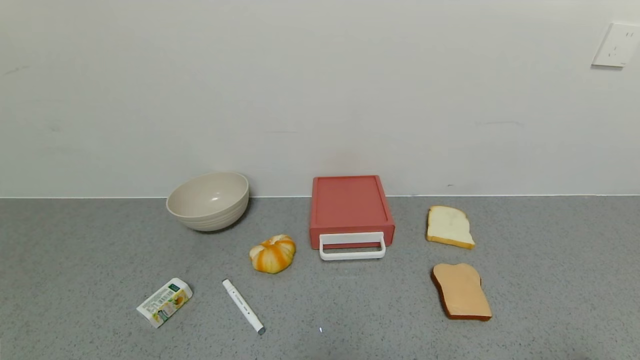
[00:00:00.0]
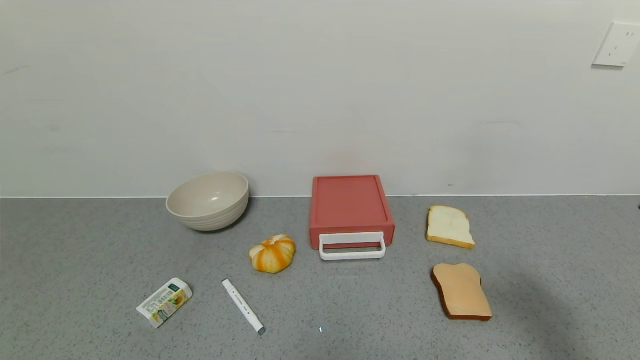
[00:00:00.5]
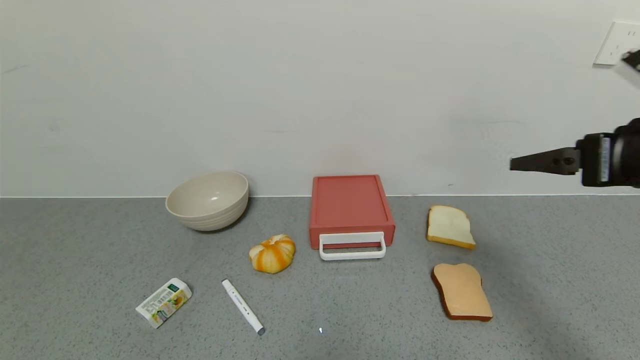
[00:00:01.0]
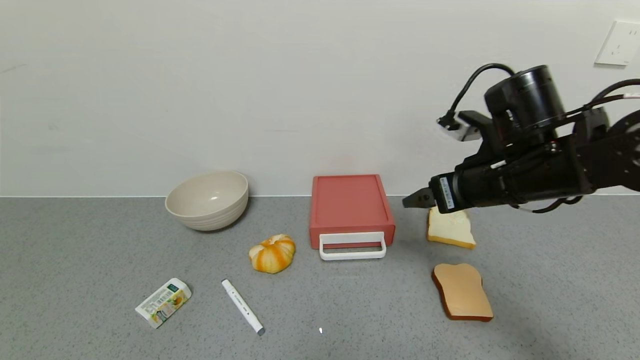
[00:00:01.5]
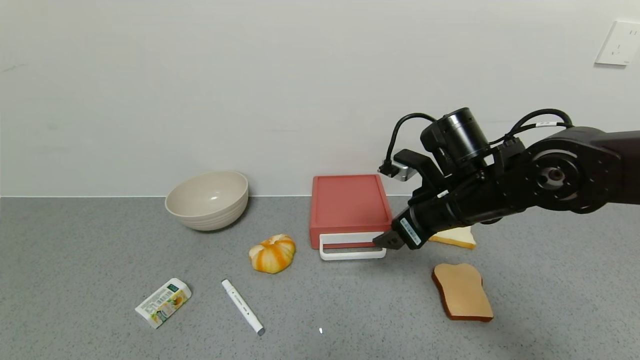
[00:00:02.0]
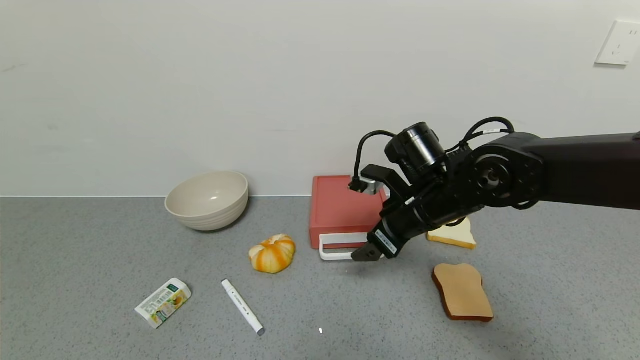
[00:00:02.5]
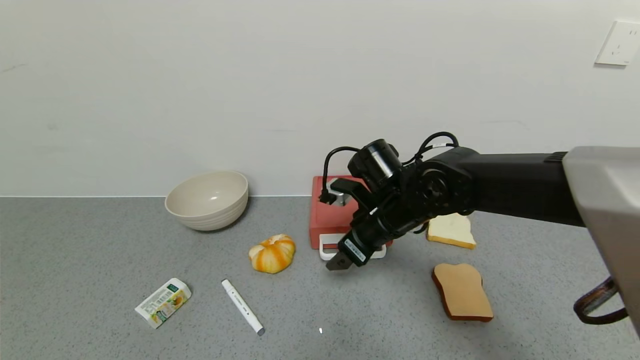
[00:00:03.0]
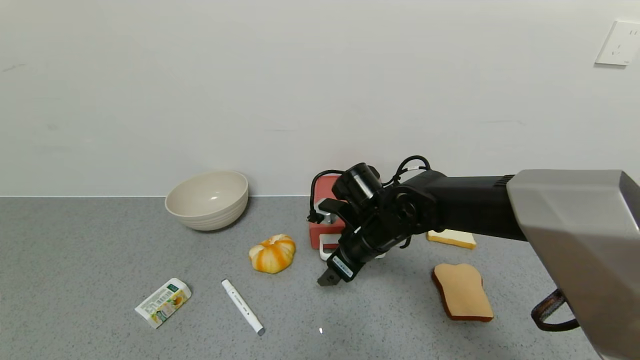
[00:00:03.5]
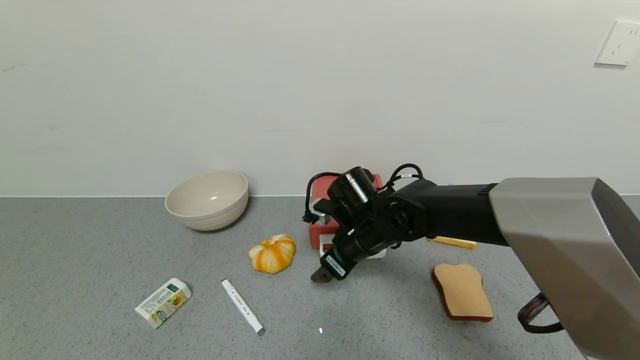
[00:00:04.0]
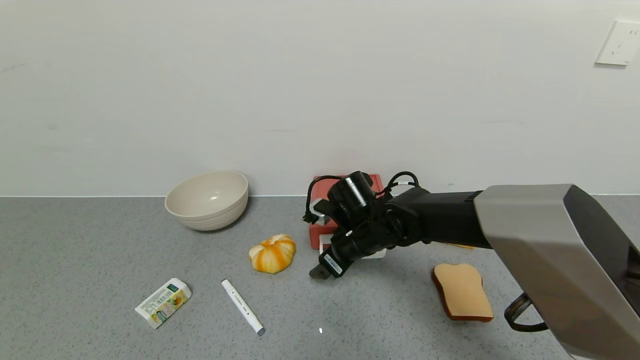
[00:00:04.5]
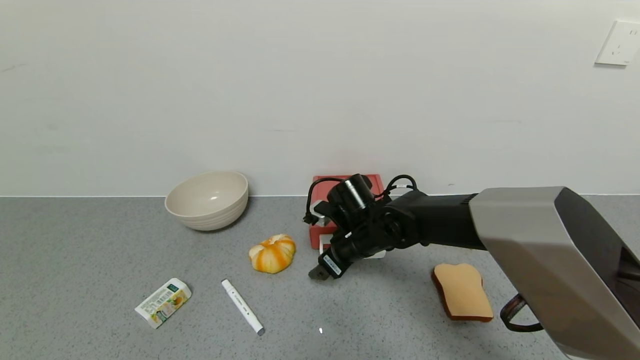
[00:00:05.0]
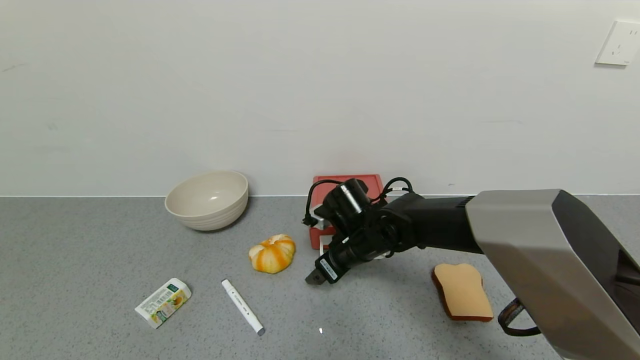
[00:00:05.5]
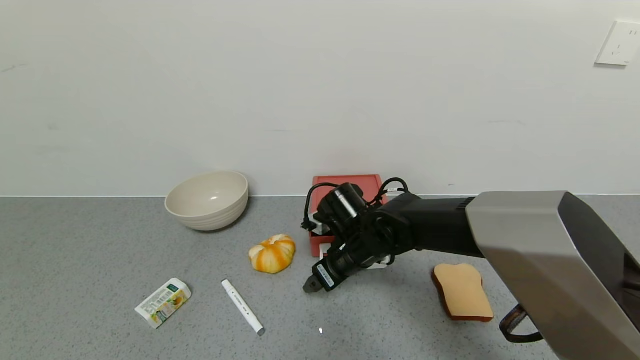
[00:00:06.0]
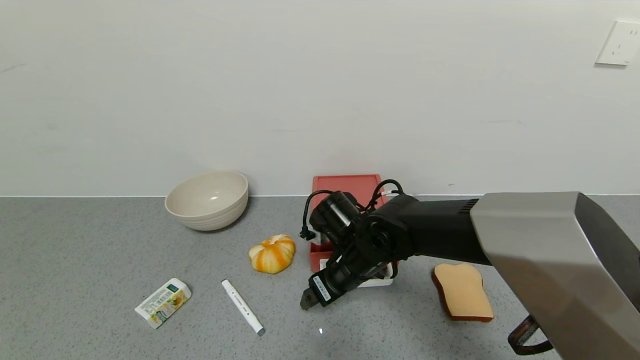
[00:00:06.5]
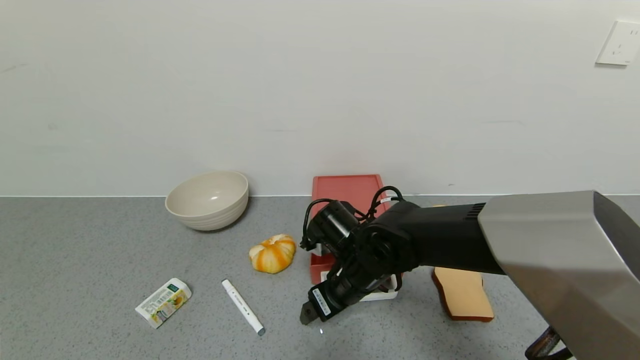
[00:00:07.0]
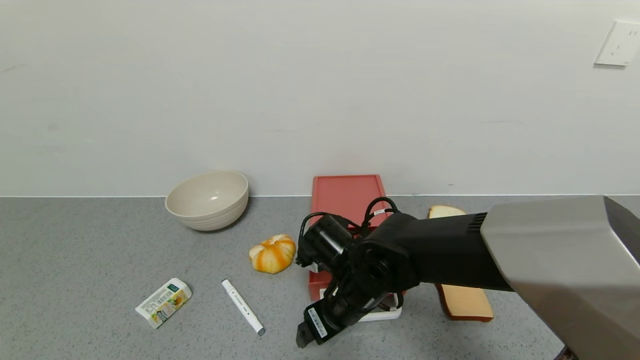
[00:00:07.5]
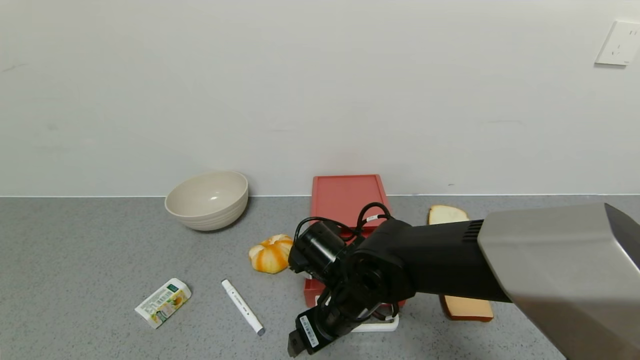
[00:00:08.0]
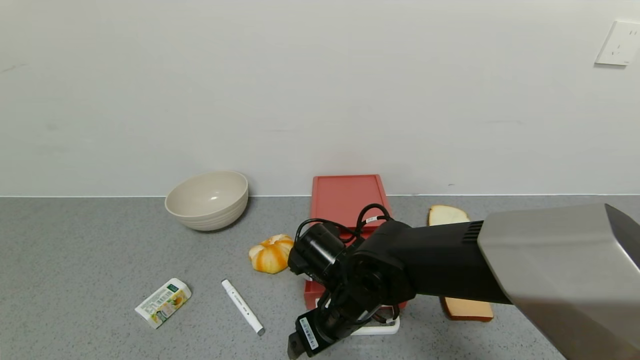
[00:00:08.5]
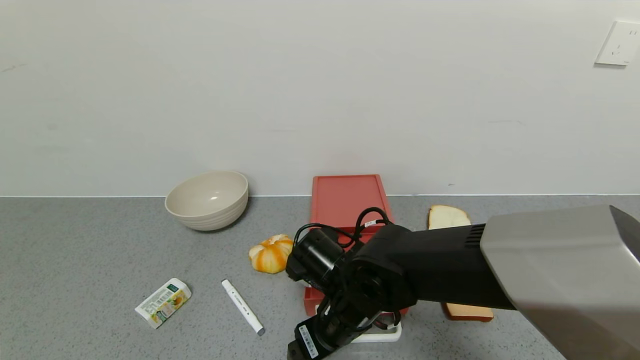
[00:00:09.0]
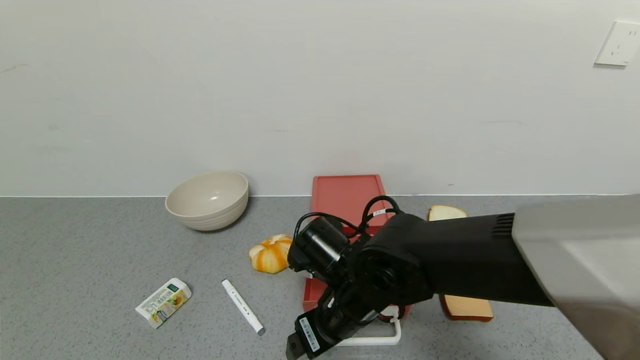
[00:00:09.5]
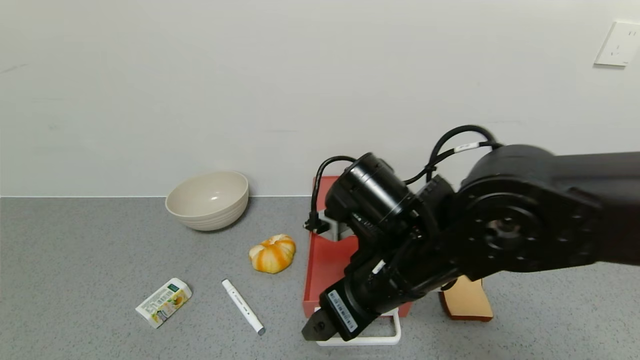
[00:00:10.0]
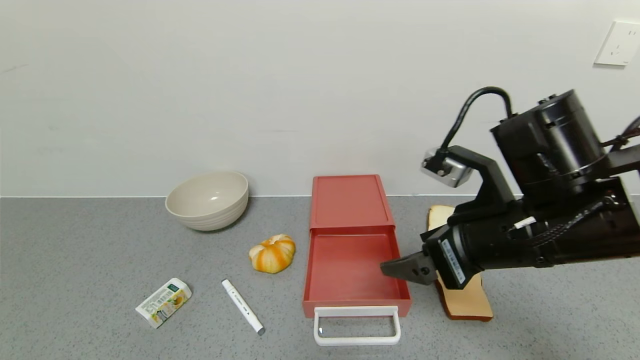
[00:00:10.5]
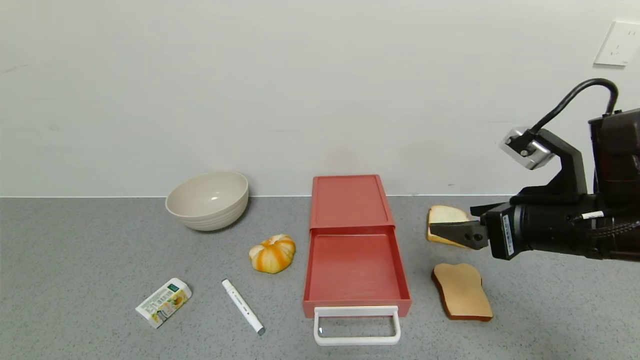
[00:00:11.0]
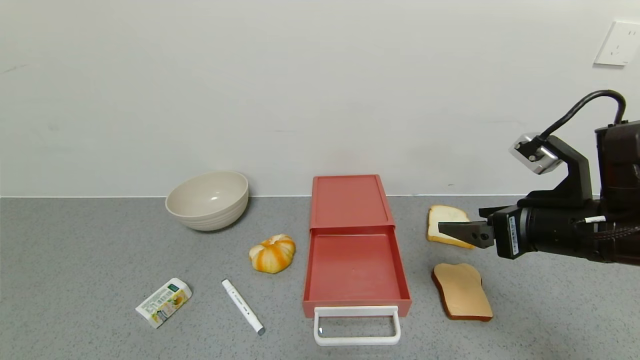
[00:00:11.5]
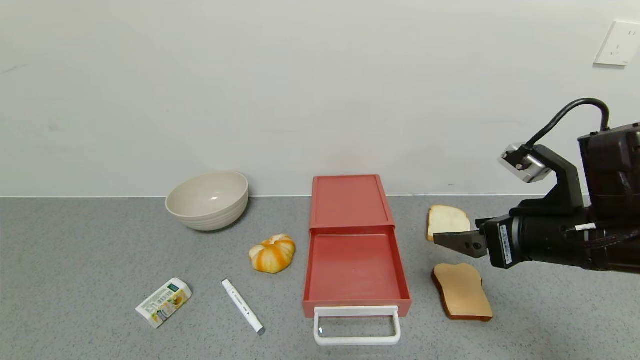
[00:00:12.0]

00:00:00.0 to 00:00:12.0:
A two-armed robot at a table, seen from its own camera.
Task of the whole recording: use the gripper to open the drawer and close the red drawer.
Step, 00:00:00.0 to 00:00:10.0: Open the red drawer with right gripper.
00:00:00.0 to 00:00:02.0: The right gripper moves to the left, forward and downward, some 25 cm.
00:00:02.0 to 00:00:04.0: The right gripper travels to the left and downward by approximately 15 cm.
00:00:04.0 to 00:00:06.0: The grippers stay close to where they were, moving slightly.
00:00:06.0 to 00:00:08.0: The right gripper travels backward by approximately 10 cm.
00:00:08.0 to 00:00:10.0: The right gripper heads upward and to the right, covering approximately 15 cm.
00:00:10.0 to 00:00:12.0: The right gripper is displaced to the right by roughly 15 cm.

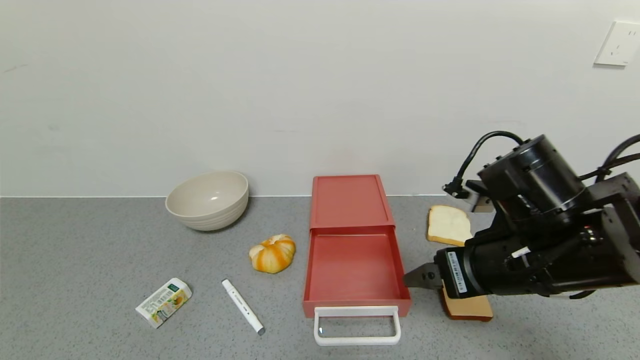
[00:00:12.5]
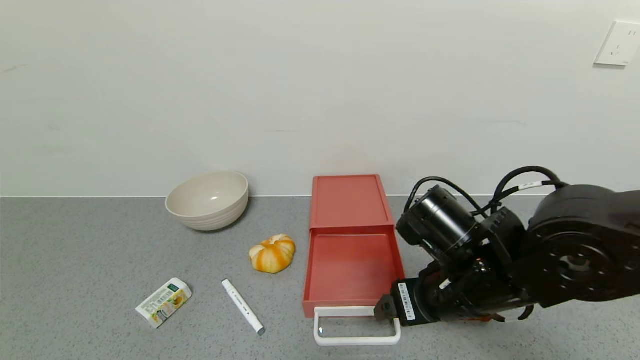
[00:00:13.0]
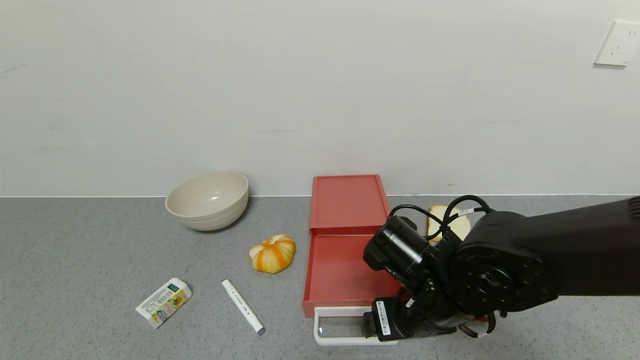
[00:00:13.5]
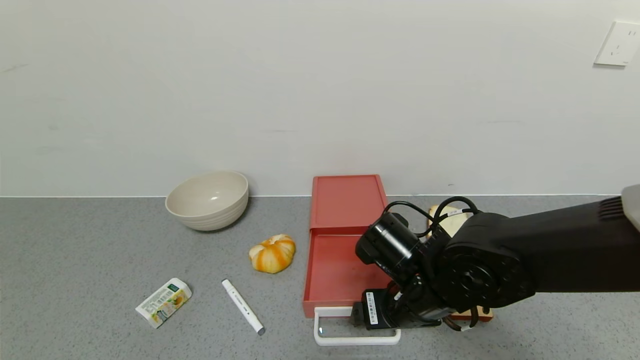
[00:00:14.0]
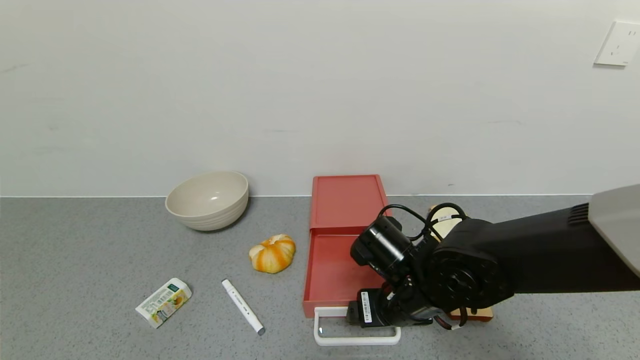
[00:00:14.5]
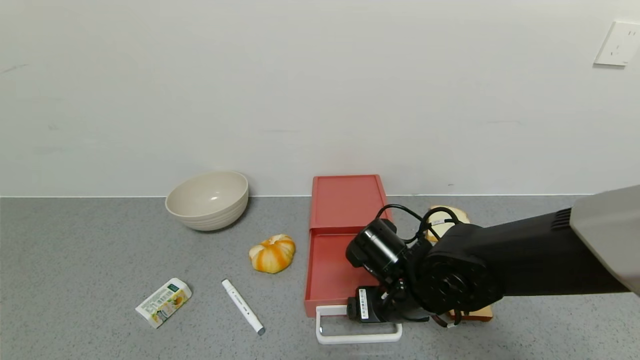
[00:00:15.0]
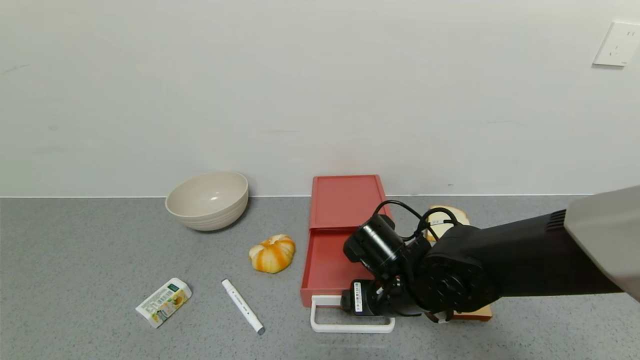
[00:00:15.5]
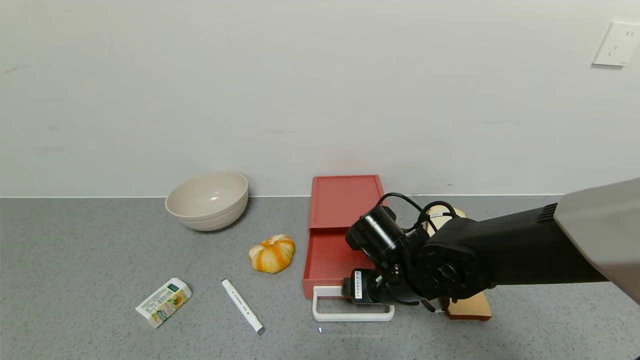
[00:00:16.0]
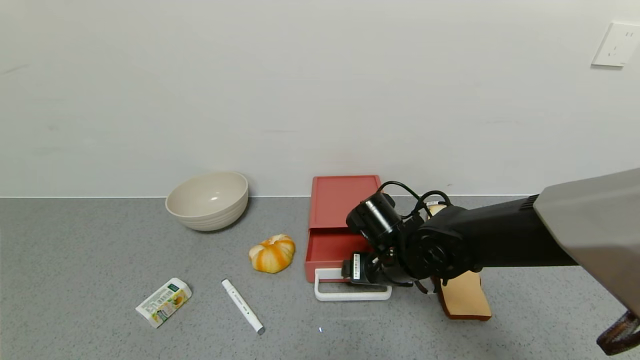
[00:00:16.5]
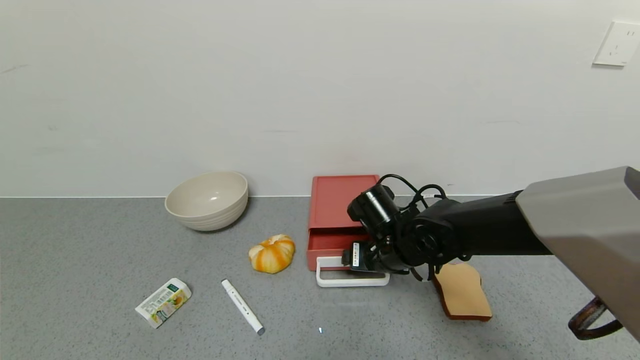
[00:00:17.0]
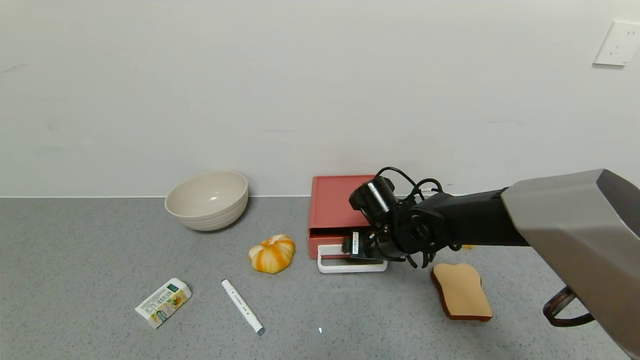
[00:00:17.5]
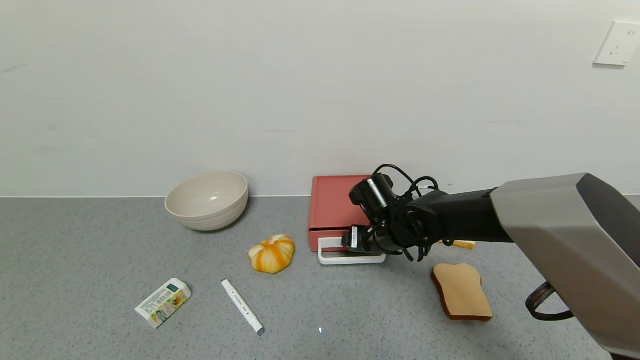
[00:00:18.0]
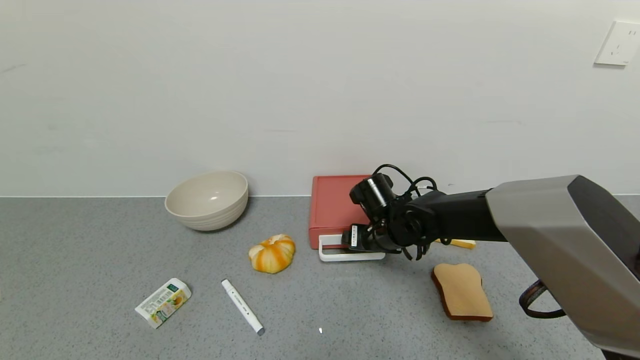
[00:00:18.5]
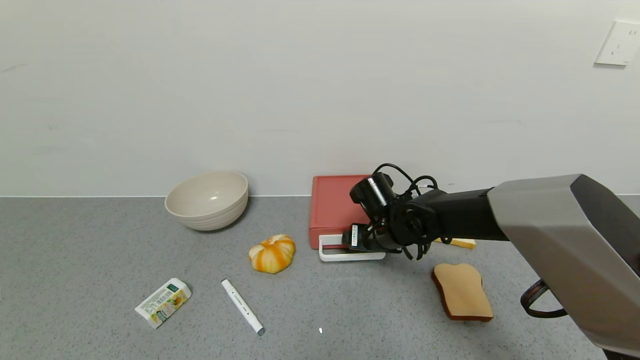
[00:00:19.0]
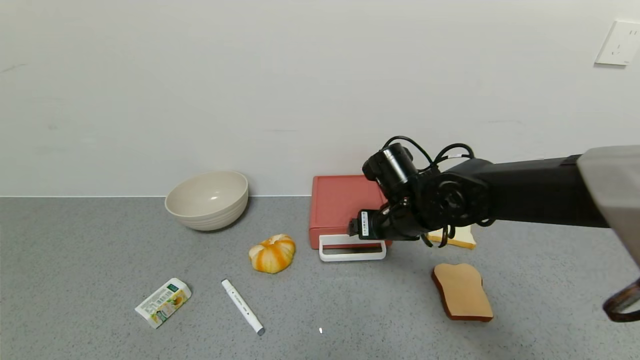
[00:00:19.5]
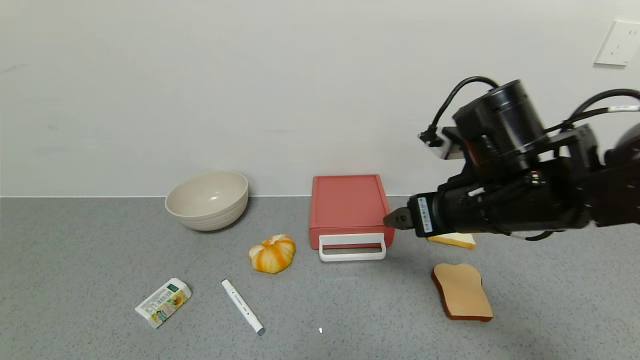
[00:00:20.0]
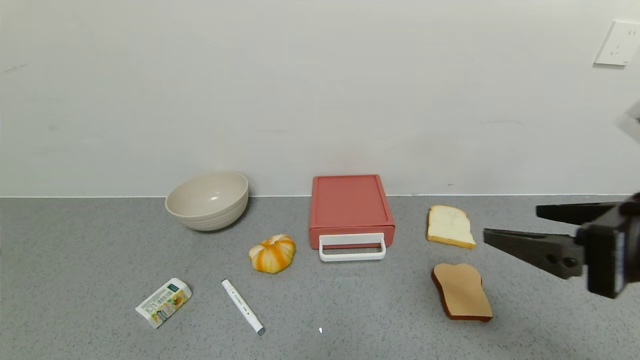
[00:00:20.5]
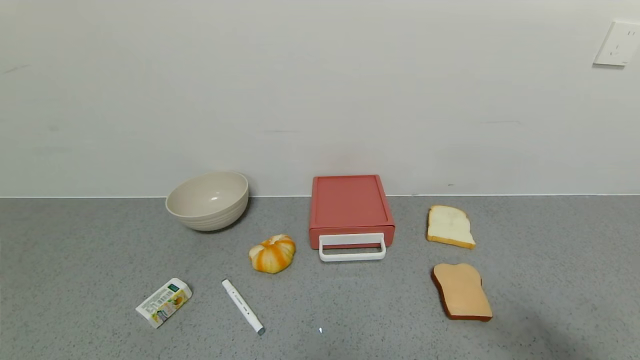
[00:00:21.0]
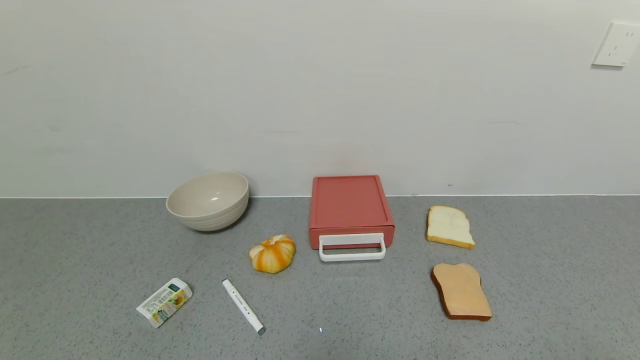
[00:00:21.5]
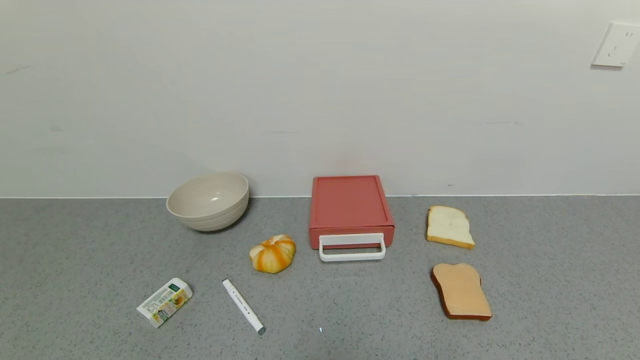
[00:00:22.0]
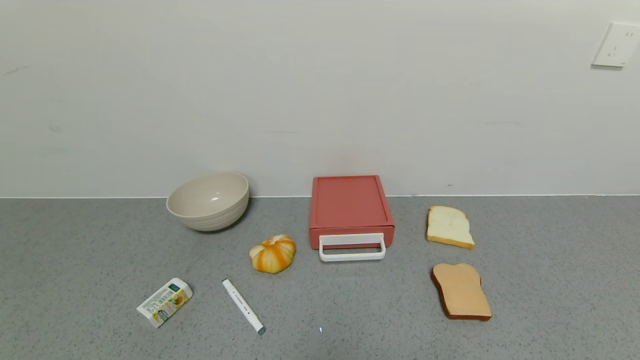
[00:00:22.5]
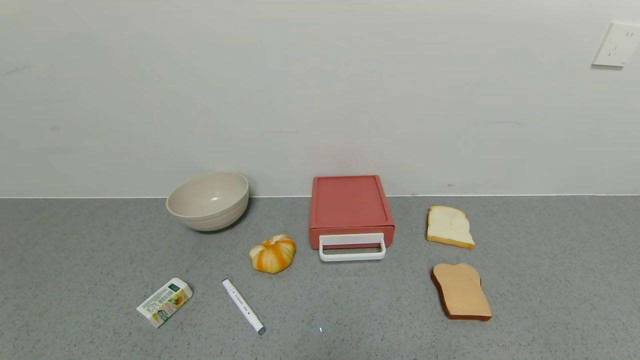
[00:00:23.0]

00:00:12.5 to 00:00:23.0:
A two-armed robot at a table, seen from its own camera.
Task of the whole recording: use the gripper to open the drawer and close the red drawer.
Step, 00:00:12.5 to 00:00:19.5: Close the red drawer with right gripper.
00:00:12.5 to 00:00:14.5: The right gripper goes approximately 15 cm downward and to the left.
00:00:14.5 to 00:00:16.5: The right gripper travels forward by about 5 cm.
00:00:16.5 to 00:00:19.0: The right gripper goes some 5 cm forward.
00:00:19.0 to 00:00:21.0: The right gripper travels backward, to the right and upward by roughly 50 cm.
00:00:21.0 to 00:00:23.0: The right gripper is displaced downward by approximately 20 cm.
